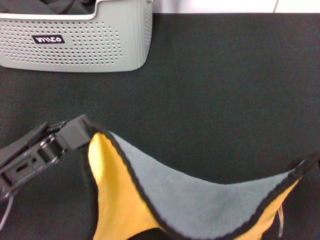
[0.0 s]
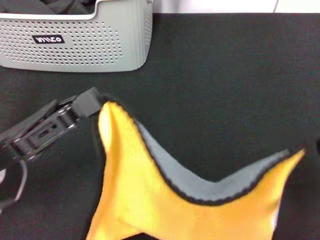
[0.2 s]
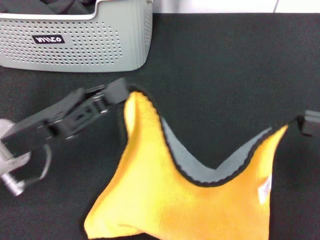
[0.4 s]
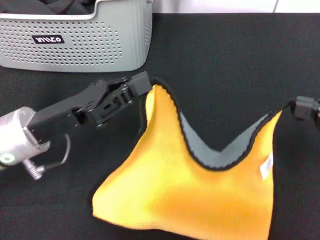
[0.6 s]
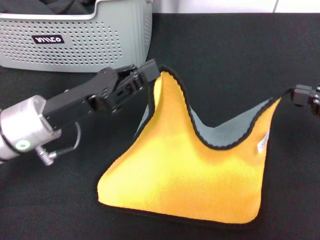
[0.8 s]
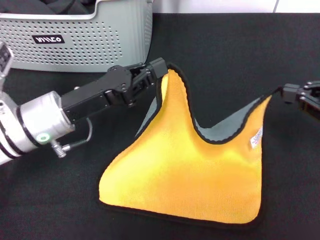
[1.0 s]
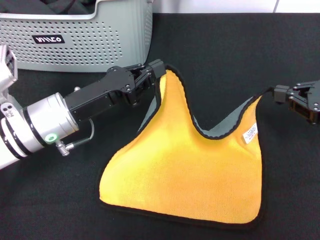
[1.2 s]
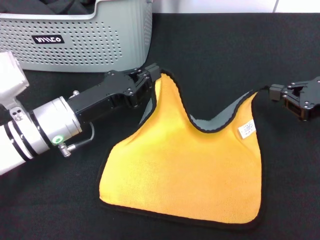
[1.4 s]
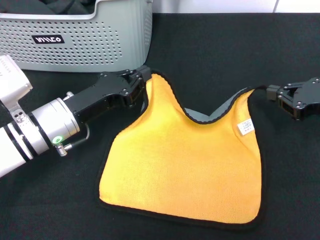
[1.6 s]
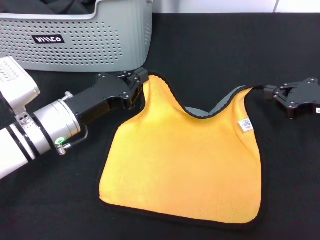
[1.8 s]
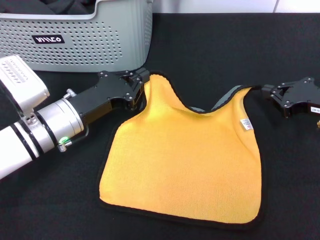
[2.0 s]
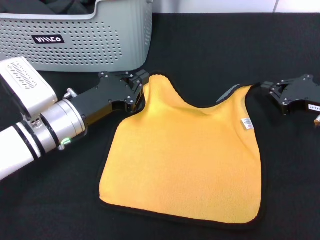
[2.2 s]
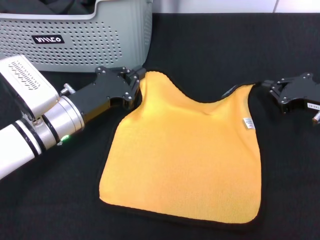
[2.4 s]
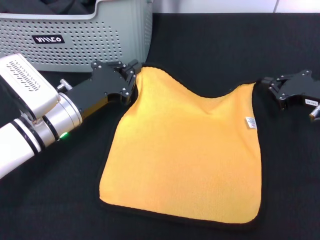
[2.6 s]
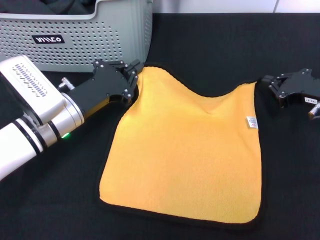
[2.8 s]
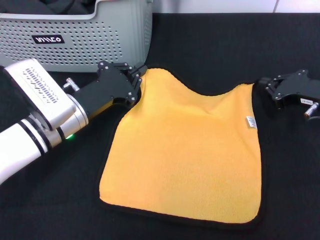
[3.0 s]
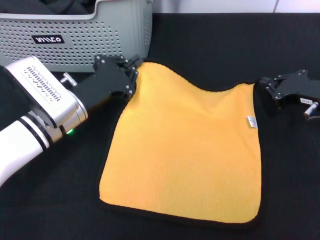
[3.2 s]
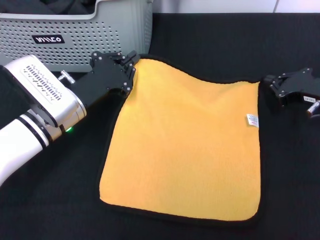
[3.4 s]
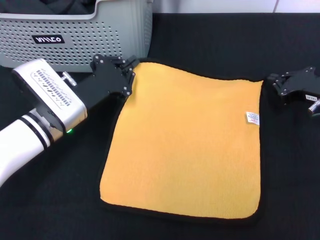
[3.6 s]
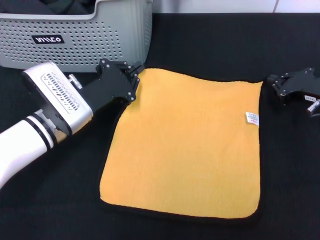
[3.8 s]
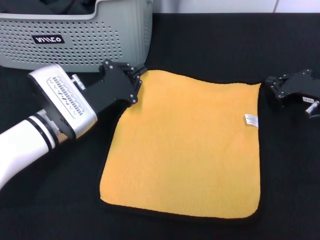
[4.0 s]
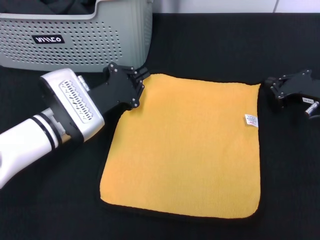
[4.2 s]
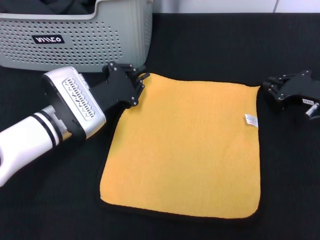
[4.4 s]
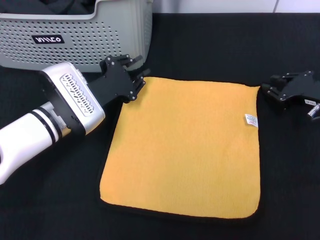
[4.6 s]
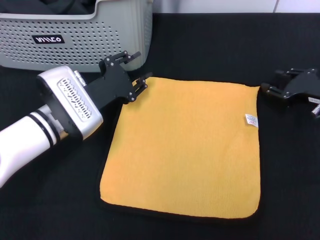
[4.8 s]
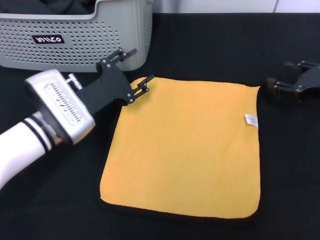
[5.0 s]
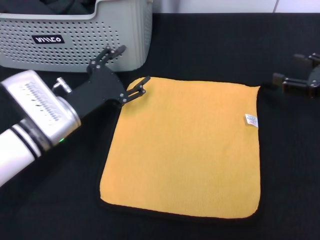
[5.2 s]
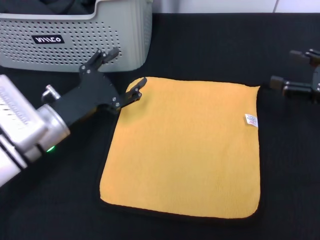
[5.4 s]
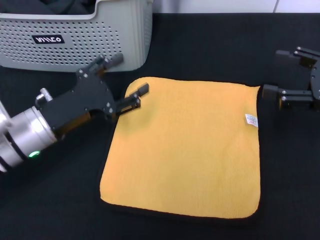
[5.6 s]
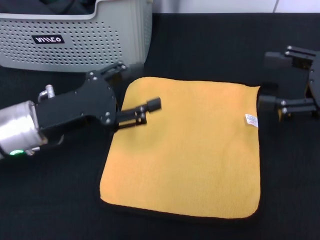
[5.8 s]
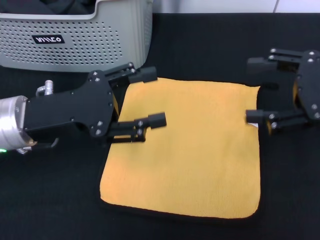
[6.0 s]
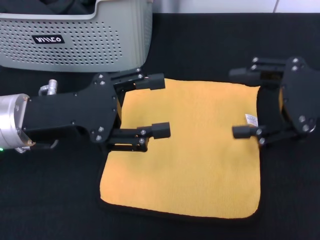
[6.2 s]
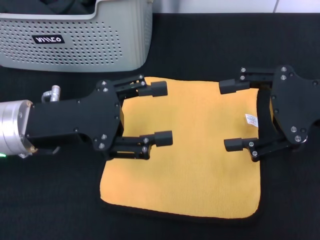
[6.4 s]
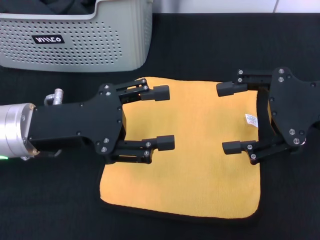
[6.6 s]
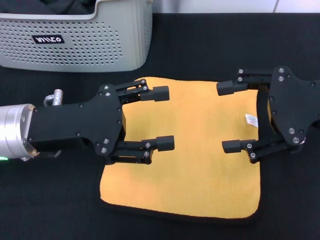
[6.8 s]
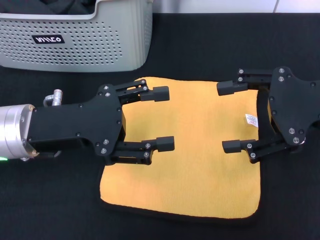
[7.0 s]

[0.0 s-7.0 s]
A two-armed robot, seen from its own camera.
Task of the whole recording: pick up the towel from the storage box and lay it flat on the black tablecloth.
Step, 0.0 to 4.4 s: Spread the towel flat with the right gripper.
0.0 to 1.4 s: The left gripper goes roughly 15 cm forward, to the right and downward. Meanwhile the right gripper shifts about 20 cm forward and downward.
1.4 to 2.8 s: The right gripper ends up about 5 cm from where it was.
4.2 to 5.6 s: The left gripper is displaced backward by some 5 cm, and opens up. The right gripper heads upward and backward, covering roughly 10 cm, and opens its fingers.
5.6 to 7.0 s: The right gripper moves to the left and upward, about 10 cm. The left gripper shifts roughly 5 cm upward.

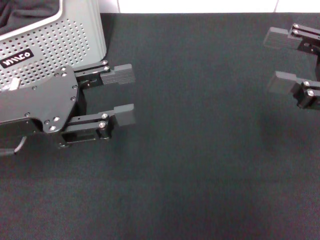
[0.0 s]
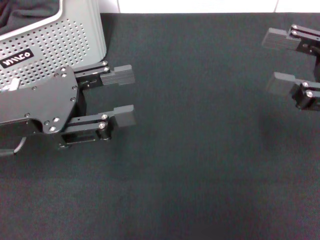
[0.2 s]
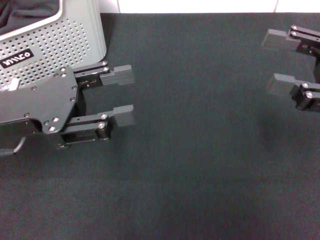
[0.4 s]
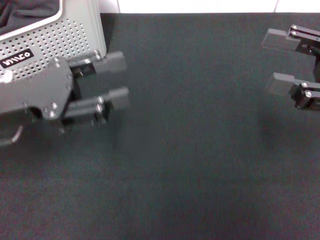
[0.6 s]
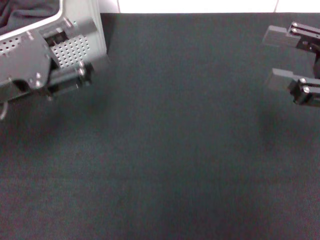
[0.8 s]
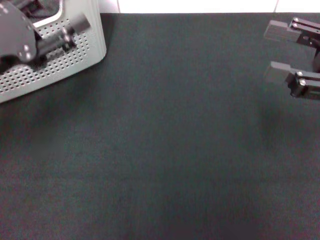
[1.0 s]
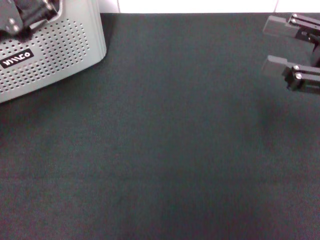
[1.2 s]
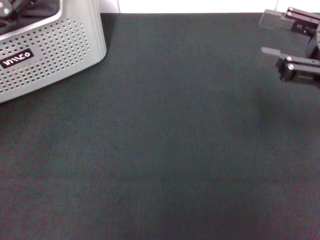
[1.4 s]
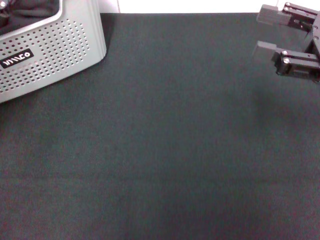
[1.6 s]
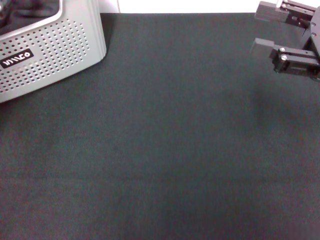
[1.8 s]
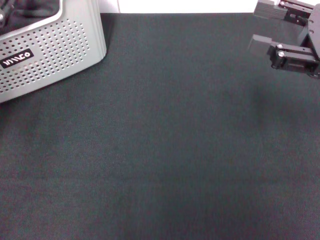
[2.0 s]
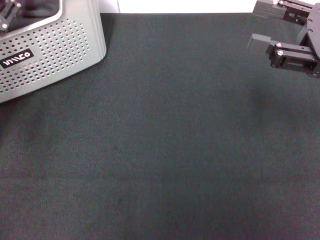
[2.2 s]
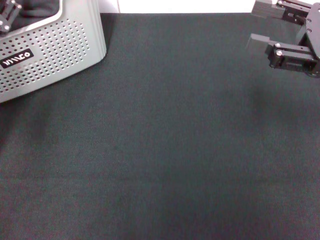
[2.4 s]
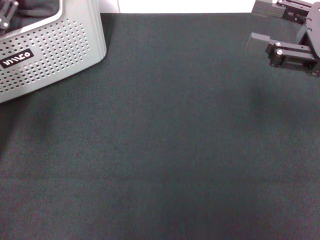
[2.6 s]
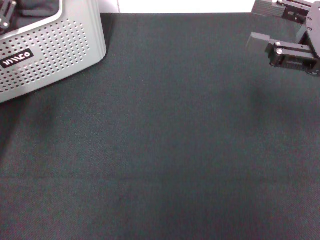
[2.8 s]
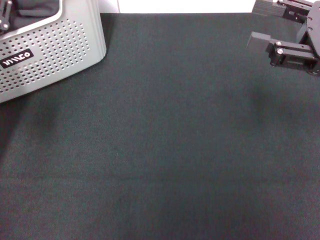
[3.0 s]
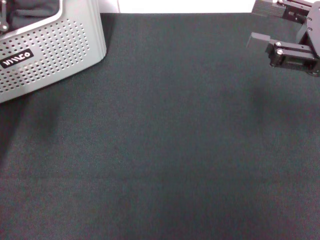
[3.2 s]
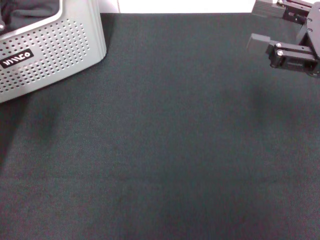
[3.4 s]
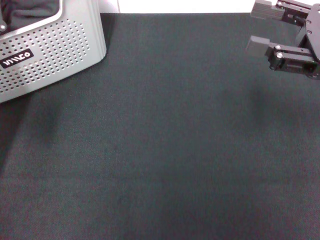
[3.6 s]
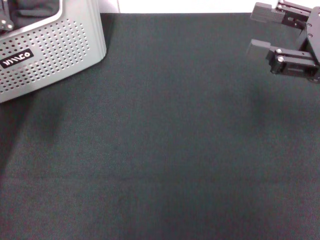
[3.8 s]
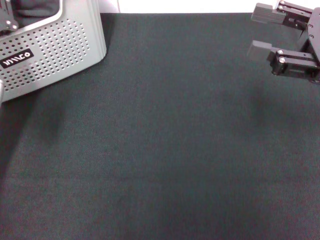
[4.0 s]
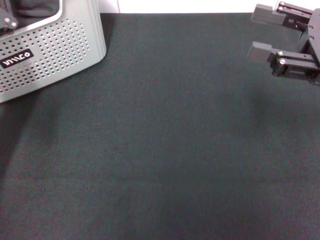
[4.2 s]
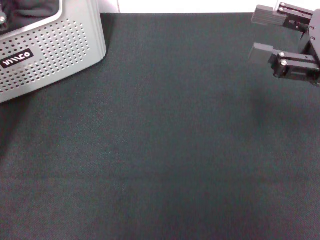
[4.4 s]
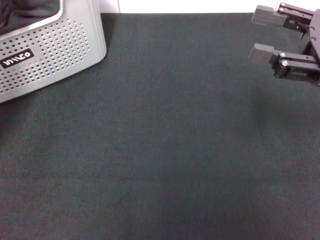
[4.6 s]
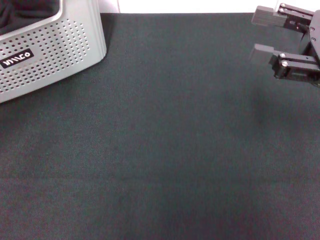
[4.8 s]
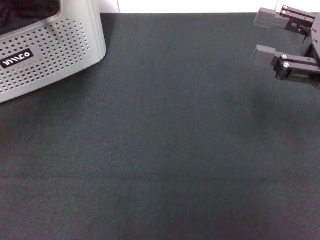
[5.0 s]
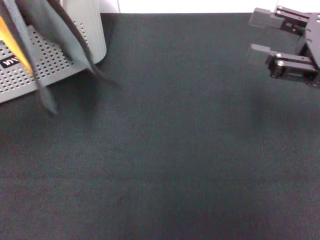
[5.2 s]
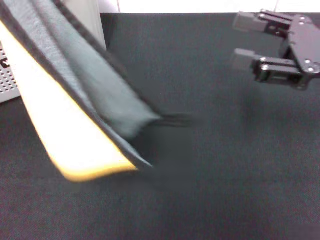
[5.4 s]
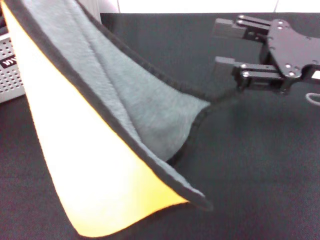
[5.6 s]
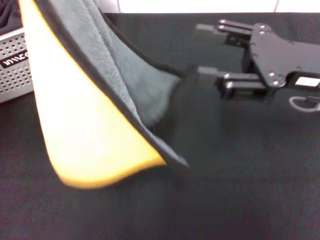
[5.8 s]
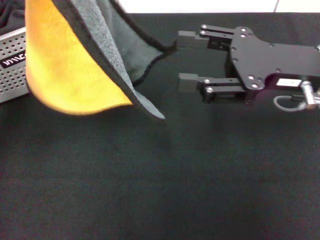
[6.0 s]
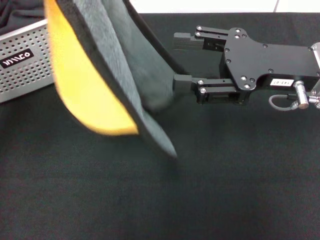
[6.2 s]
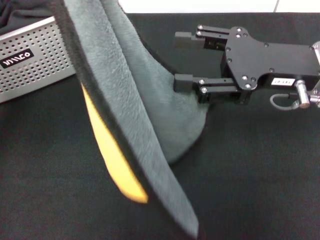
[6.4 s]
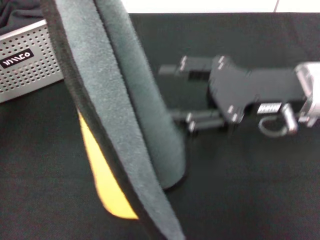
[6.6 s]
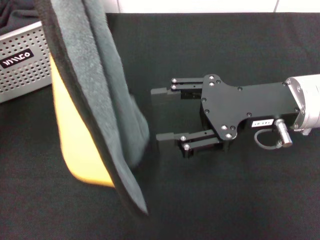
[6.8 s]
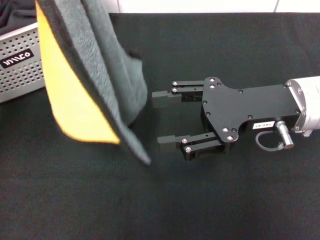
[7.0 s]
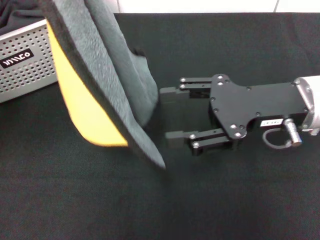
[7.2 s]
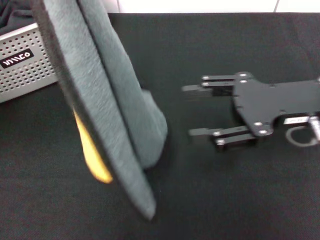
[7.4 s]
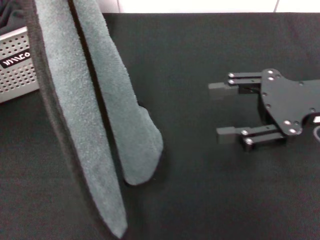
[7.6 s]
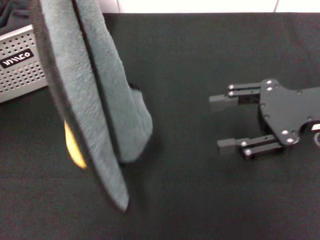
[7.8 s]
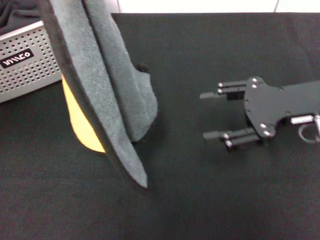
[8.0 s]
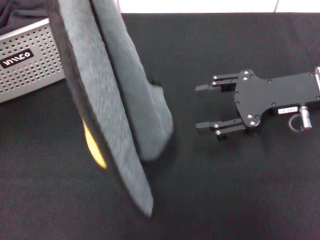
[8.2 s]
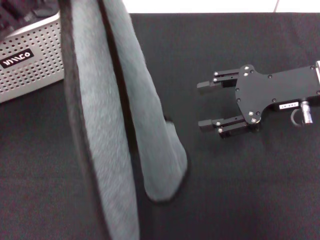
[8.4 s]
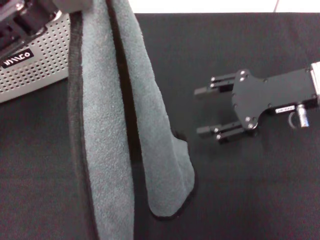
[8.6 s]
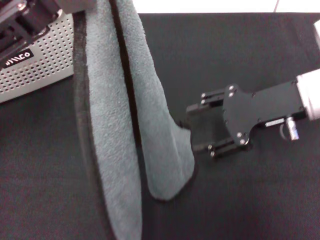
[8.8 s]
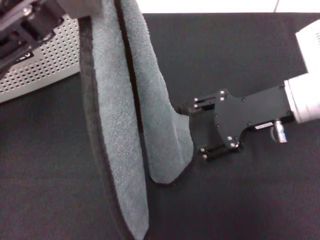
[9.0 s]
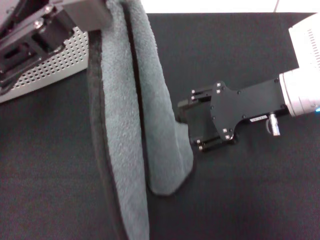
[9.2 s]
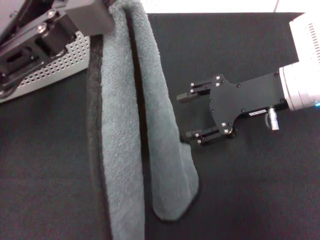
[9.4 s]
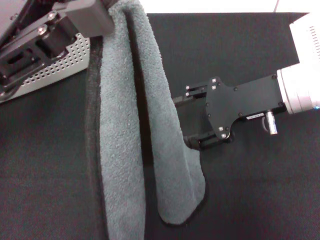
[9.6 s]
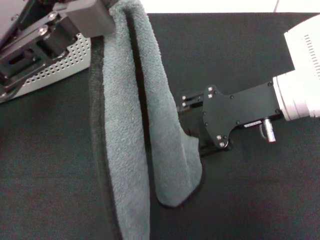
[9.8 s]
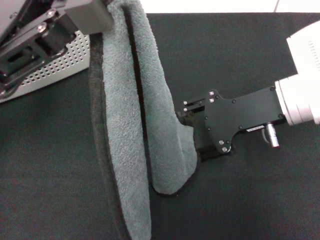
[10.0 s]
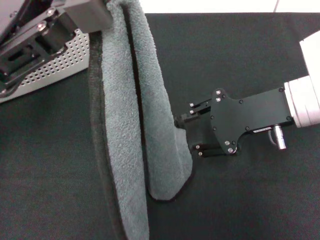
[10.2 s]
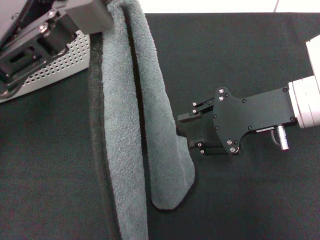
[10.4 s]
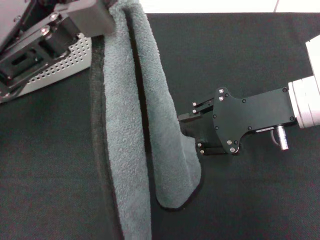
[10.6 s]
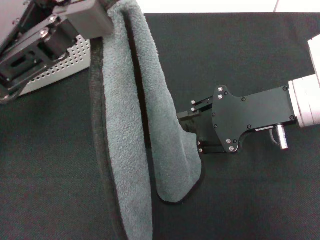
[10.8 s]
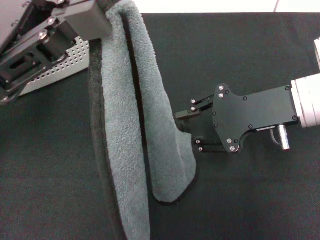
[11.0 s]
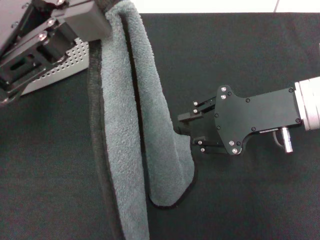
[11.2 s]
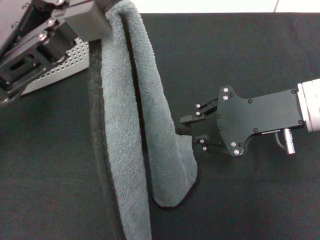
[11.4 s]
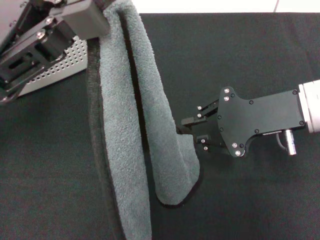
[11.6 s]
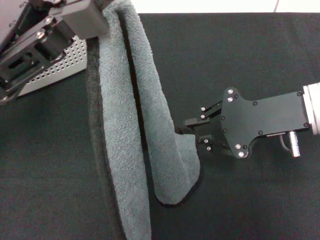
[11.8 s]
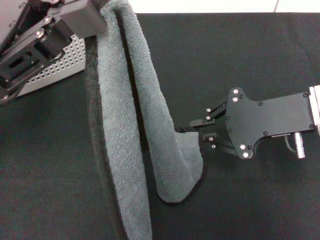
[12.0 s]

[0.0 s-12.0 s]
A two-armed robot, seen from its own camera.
Task of the whole recording: pick up the towel from the storage box and lay it flat on the black tablecloth.
Step, 0.0 to 3.8 s: Pick up a towel with the left gripper.
0.0 to 1.6 s: The left gripper travels forward and to the left by some 10 cm.
3.0 to 4.4 s: The left gripper closes.
4.4 to 6.0 s: The right gripper travels to the left by about 5 cm; the left gripper shifts about 15 cm upward and to the right.
7.6 to 9.0 s: The right gripper heads to the left, covering some 5 cm.
9.0 to 12.0 s: The grippers stay close to where they were, moving slightly.

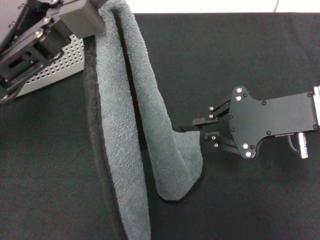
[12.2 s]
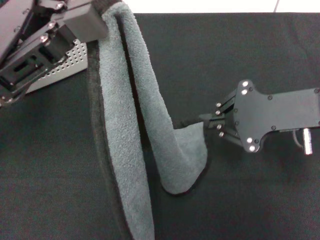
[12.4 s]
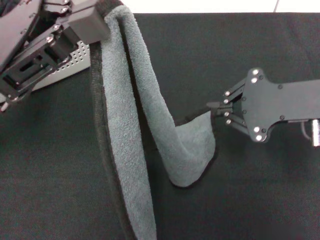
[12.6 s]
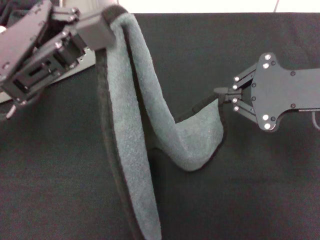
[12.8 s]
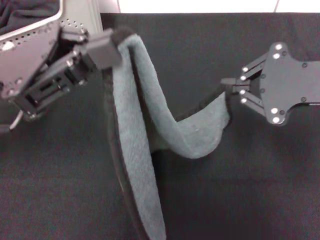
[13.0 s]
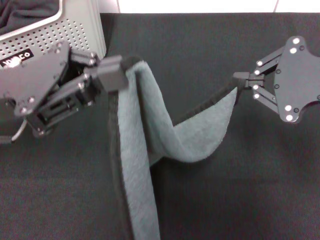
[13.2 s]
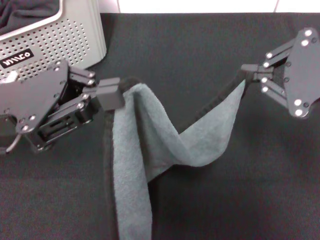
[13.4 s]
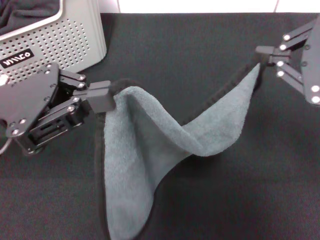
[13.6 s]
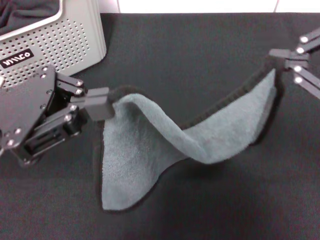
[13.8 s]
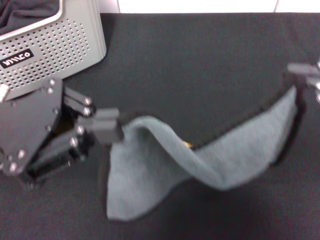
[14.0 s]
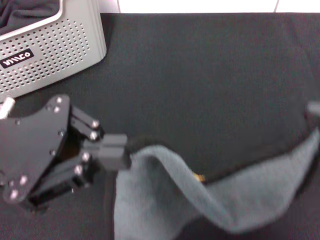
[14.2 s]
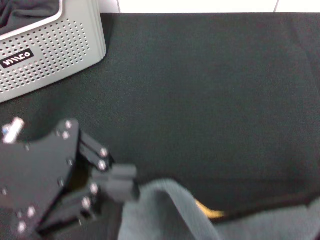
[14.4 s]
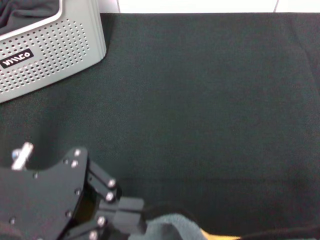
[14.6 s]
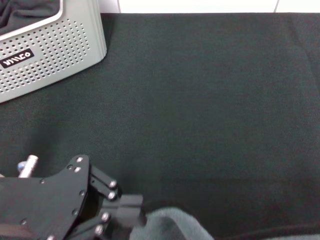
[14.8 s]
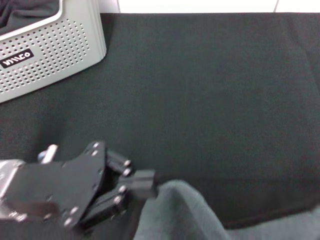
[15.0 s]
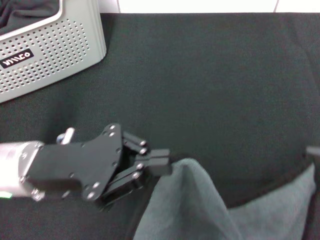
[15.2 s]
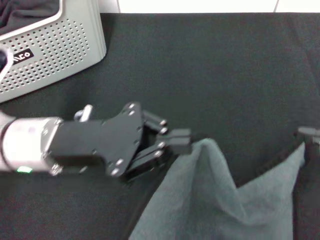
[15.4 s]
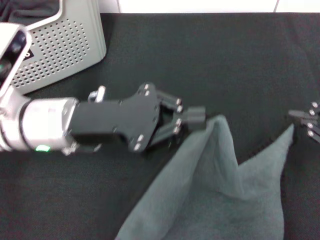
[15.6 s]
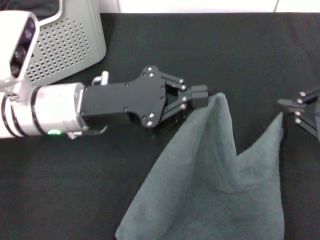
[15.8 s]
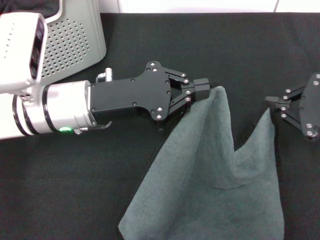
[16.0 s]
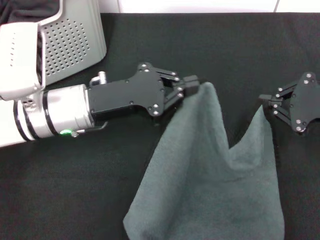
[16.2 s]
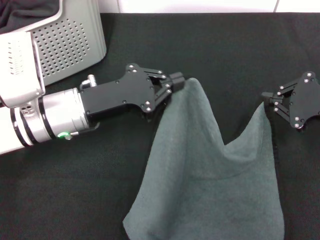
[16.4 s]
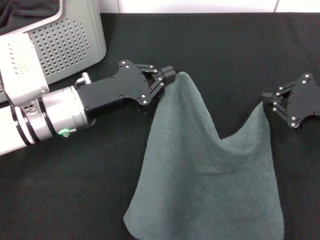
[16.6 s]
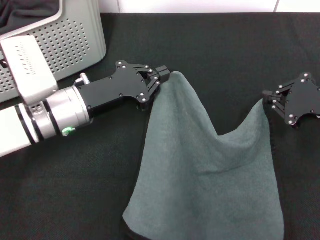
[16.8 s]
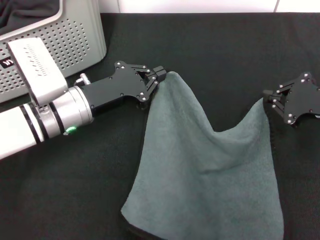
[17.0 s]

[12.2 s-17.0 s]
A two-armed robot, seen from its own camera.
Task of the whole recording: pick up the towel from the storage box and lay it flat on the black tablecloth.
12.2 to 13.8 s: The right gripper heads upward, backward and to the right, covering some 15 cm. Meanwhile the left gripper shifts by about 5 cm.
13.8 to 15.4 s: The right gripper moves downward and to the right, some 10 cm, while the left gripper moves to the right and downward, about 10 cm.
15.4 to 17.0 s: Both grippers move forward and downward, about 10 cm.
